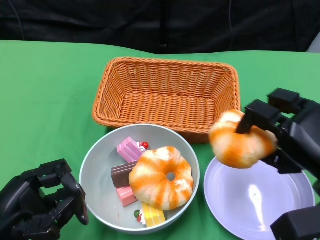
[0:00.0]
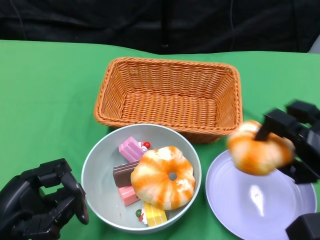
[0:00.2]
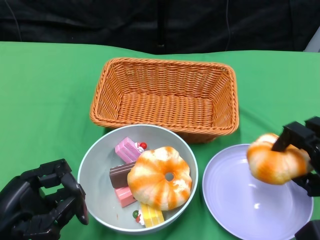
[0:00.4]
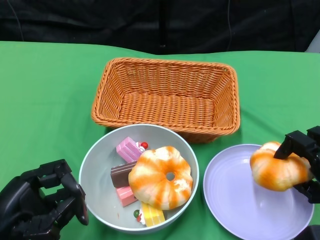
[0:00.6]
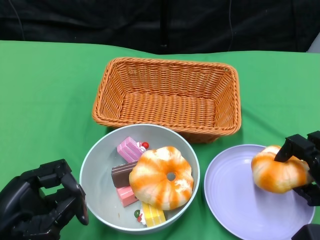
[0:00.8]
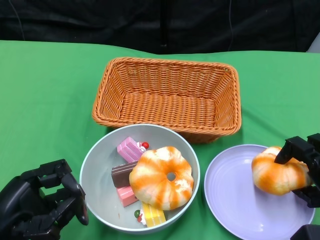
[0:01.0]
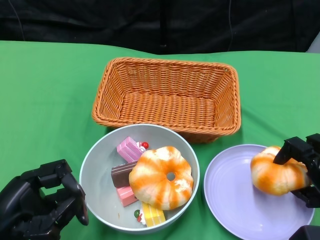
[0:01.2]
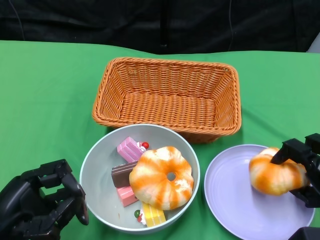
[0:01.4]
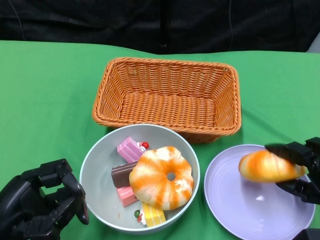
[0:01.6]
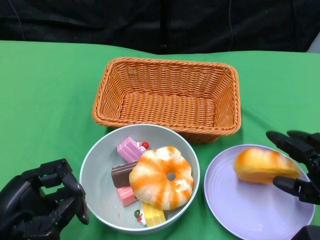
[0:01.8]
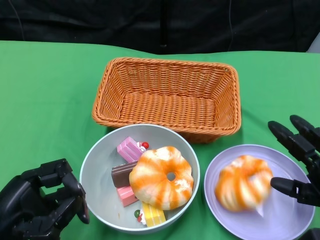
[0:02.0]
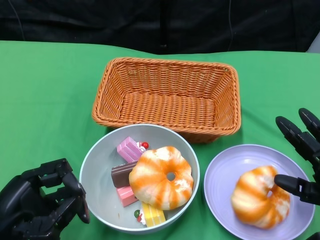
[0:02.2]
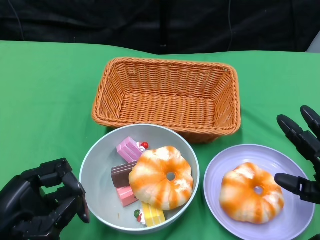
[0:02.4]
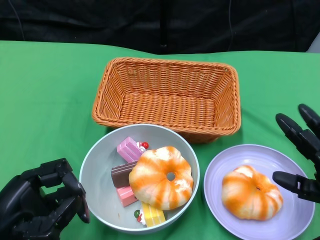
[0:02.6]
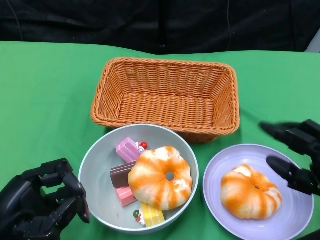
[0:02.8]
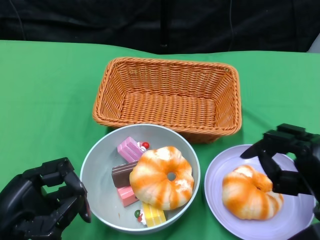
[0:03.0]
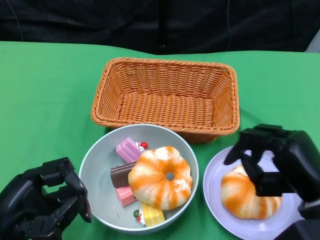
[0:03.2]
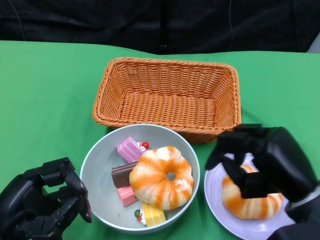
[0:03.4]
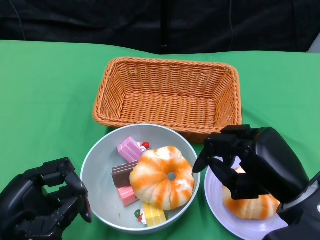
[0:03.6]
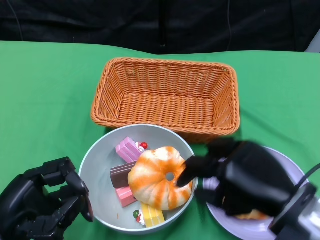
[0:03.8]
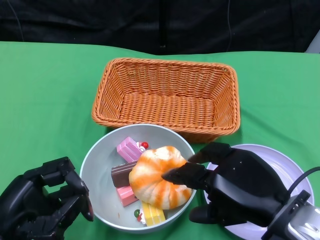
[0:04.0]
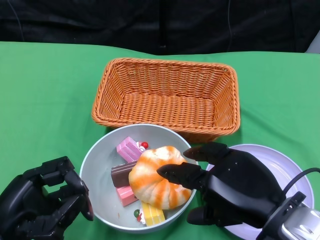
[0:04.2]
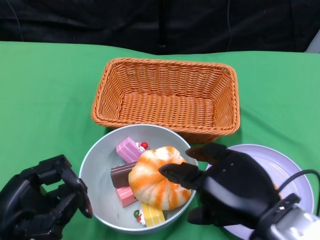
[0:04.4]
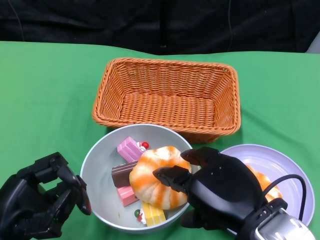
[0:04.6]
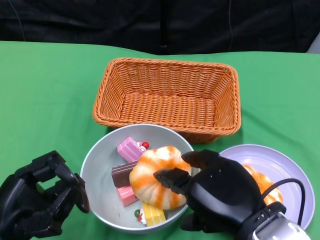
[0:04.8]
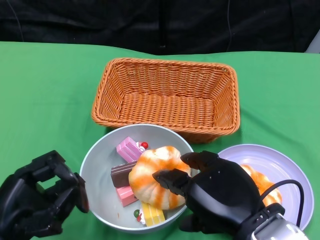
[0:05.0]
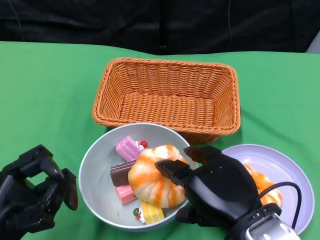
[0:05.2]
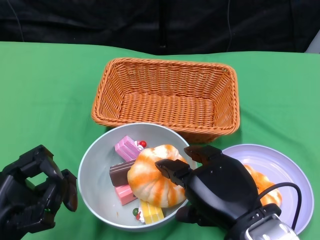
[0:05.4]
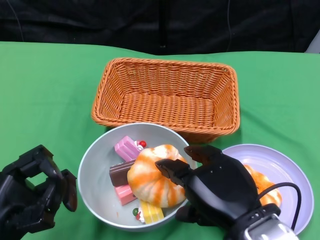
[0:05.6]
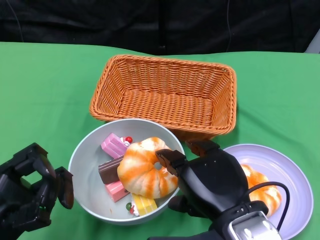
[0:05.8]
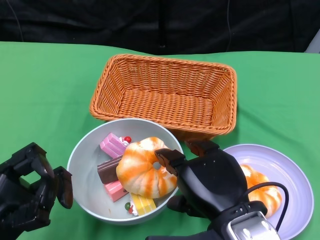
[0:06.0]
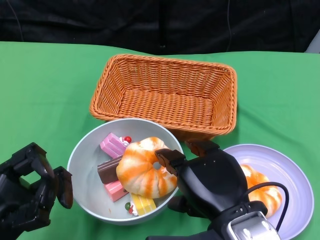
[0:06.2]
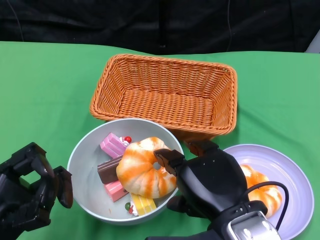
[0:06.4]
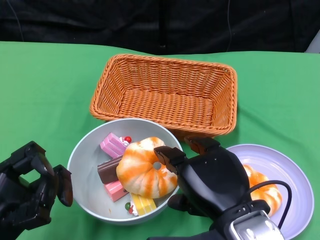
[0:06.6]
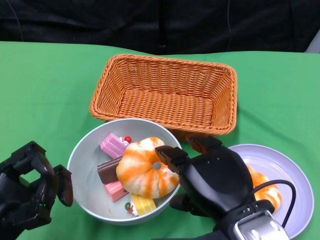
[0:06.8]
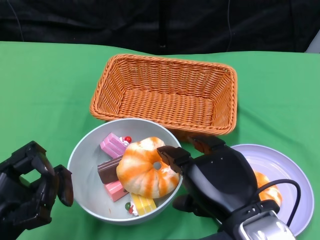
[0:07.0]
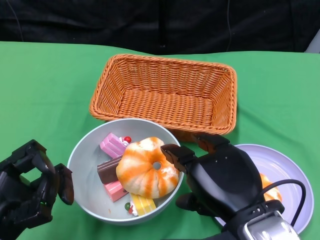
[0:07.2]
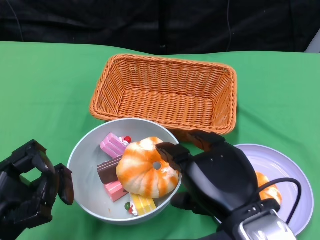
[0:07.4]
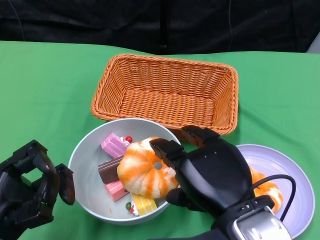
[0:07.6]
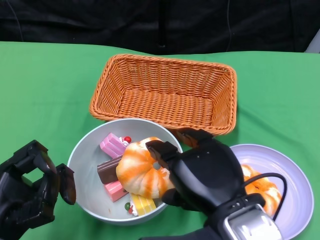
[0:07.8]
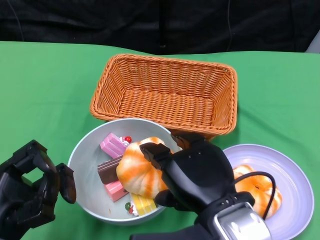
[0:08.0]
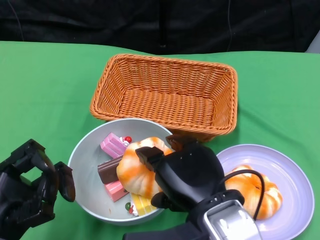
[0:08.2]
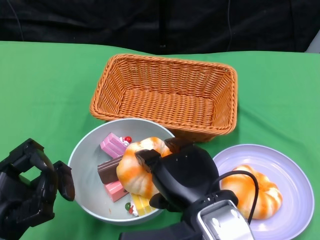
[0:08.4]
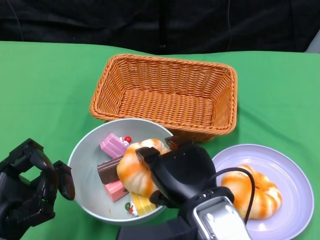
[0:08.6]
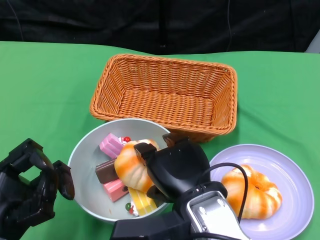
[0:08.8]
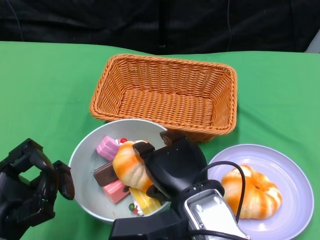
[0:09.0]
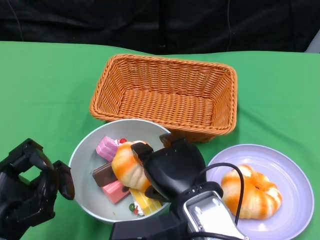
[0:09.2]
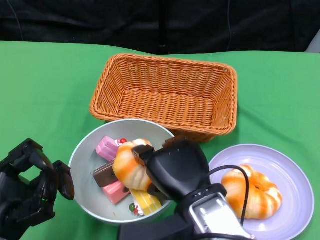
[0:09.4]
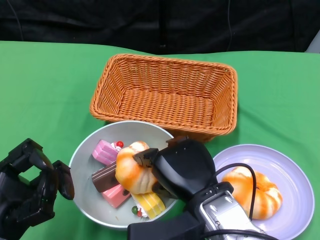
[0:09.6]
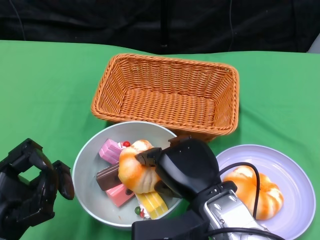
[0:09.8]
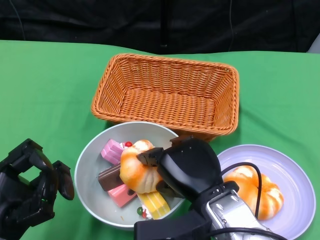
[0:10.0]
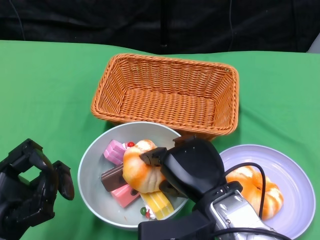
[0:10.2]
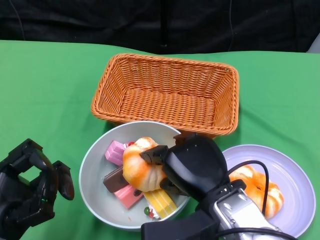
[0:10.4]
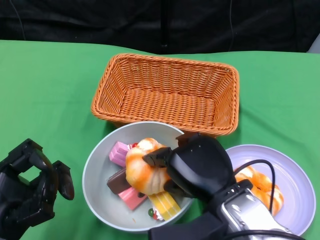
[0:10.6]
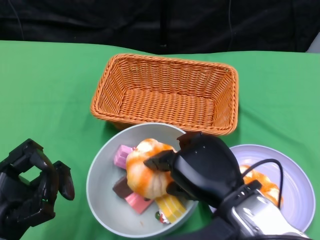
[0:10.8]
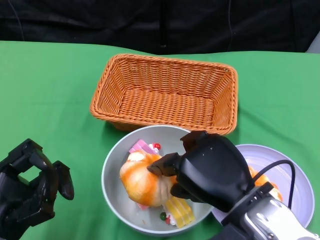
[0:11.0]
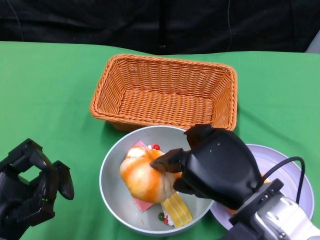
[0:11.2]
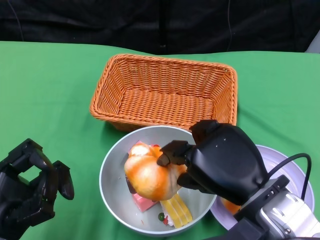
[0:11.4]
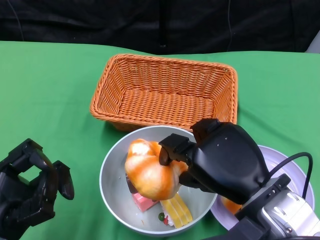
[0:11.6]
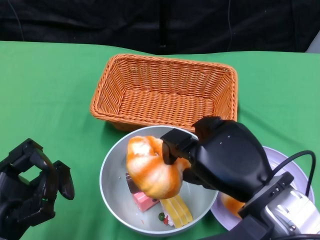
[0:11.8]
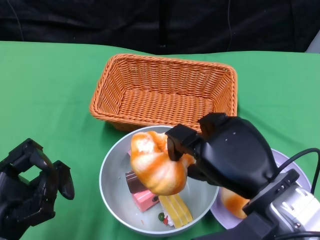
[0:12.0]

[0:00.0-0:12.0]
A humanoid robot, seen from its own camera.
0:00.0 to 0:01.6: The right hand moves downward, roughly 10 cm.
0:01.6 to 0:03.0: The right hand ends up approximately 5 cm from where it was.
0:03.0 to 0:04.4: The right hand heads to the left and upward, covering roughly 10 cm.
0:04.4 to 0:06.0: The right hand shifts approximately 5 cm to the left.
0:06.0 to 0:07.6: There are only small adjustments of the hands.
0:07.6 to 0:09.0: The right hand heads to the left, covering some 5 cm.
0:09.0 to 0:10.4: There are only small adjustments of the hands.
0:10.4 to 0:12.0: The right hand shifts approximately 5 cm to the right.

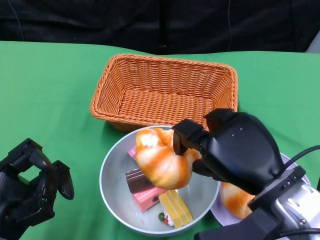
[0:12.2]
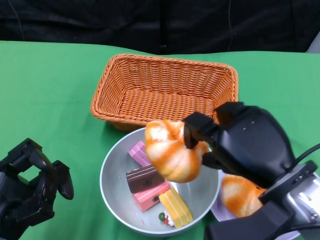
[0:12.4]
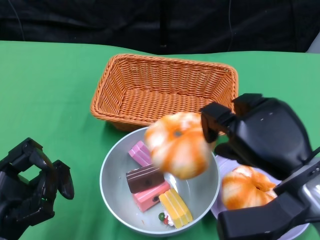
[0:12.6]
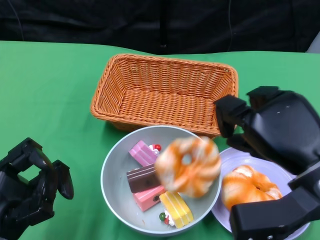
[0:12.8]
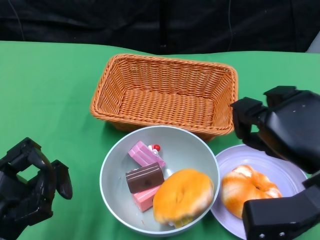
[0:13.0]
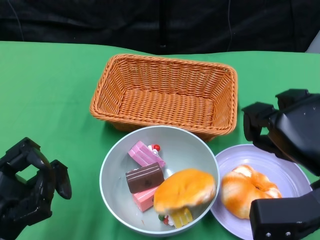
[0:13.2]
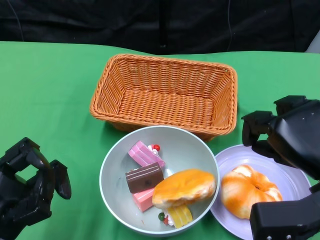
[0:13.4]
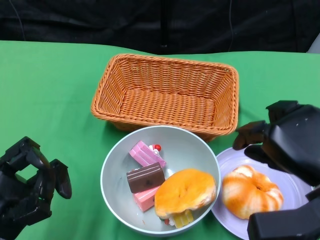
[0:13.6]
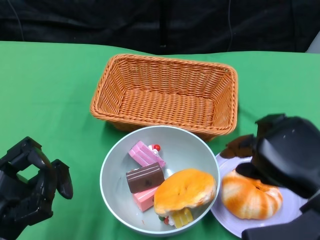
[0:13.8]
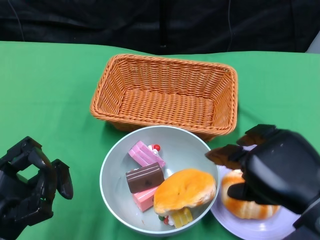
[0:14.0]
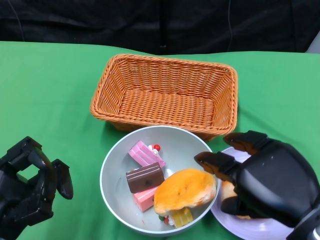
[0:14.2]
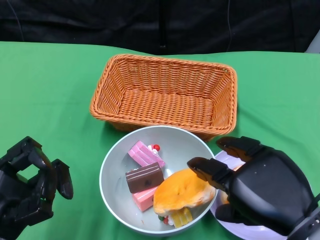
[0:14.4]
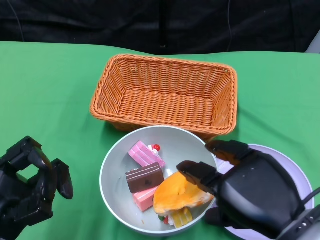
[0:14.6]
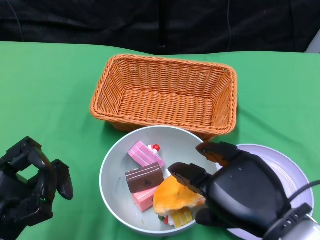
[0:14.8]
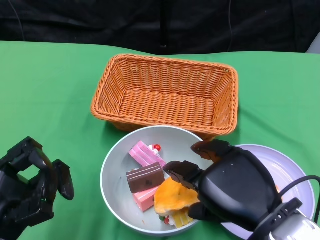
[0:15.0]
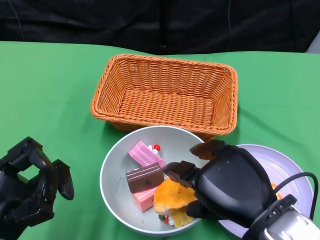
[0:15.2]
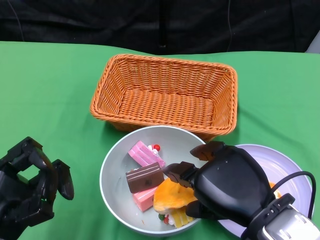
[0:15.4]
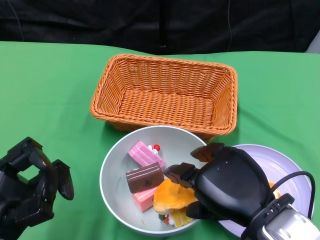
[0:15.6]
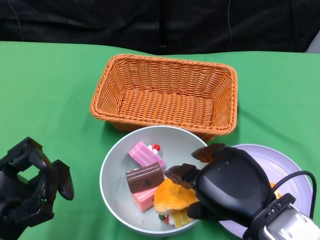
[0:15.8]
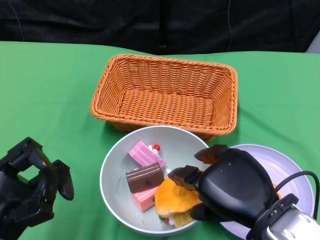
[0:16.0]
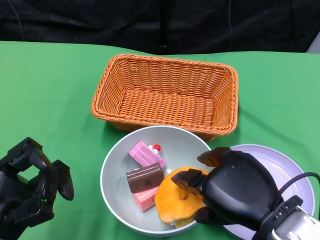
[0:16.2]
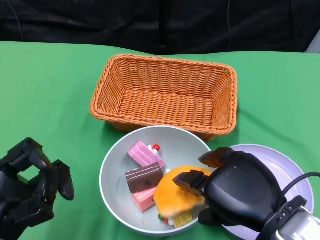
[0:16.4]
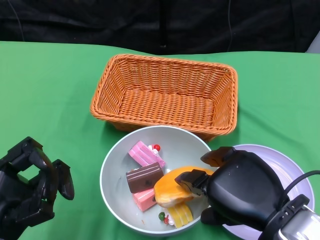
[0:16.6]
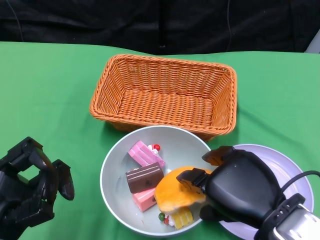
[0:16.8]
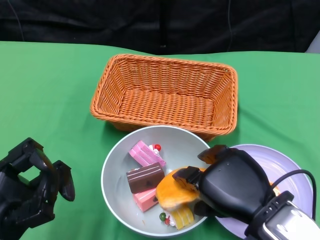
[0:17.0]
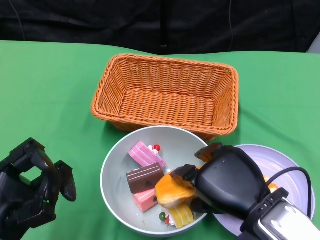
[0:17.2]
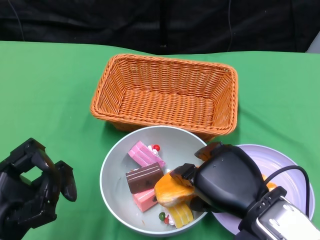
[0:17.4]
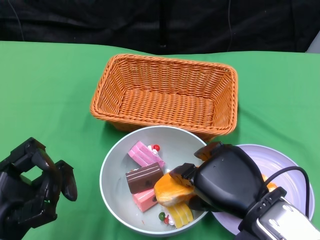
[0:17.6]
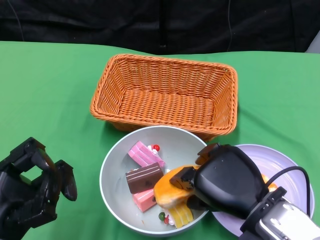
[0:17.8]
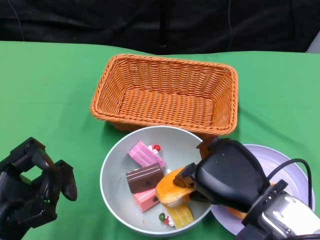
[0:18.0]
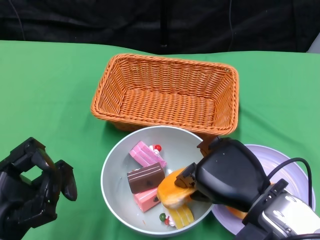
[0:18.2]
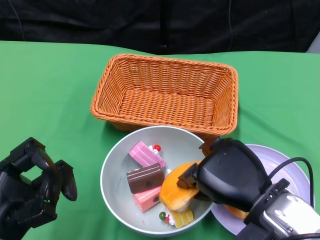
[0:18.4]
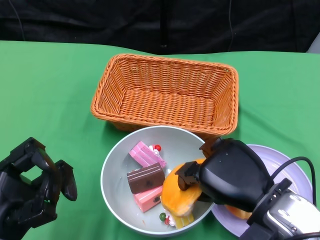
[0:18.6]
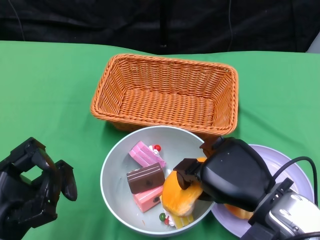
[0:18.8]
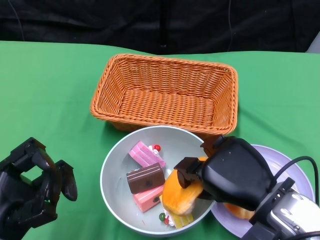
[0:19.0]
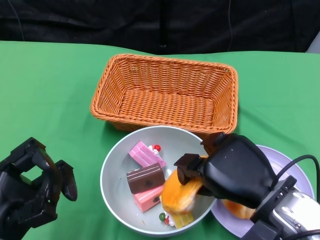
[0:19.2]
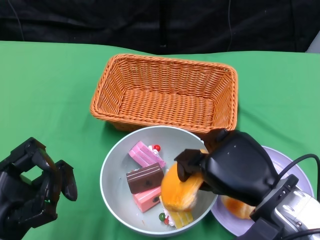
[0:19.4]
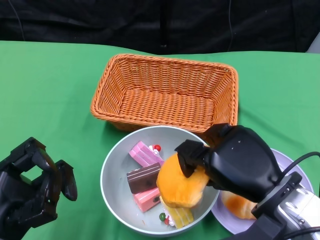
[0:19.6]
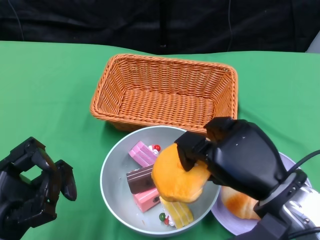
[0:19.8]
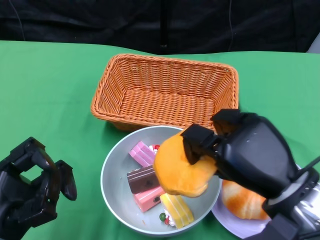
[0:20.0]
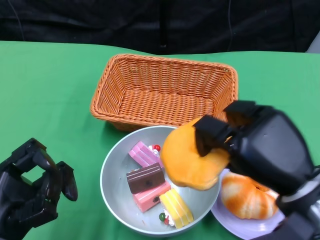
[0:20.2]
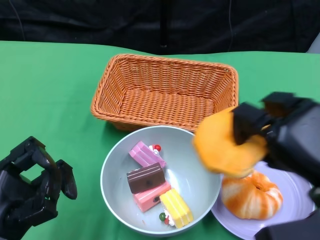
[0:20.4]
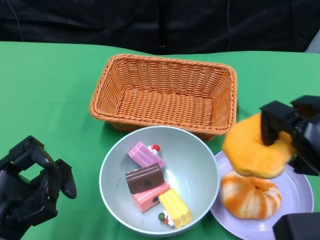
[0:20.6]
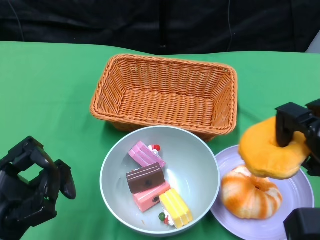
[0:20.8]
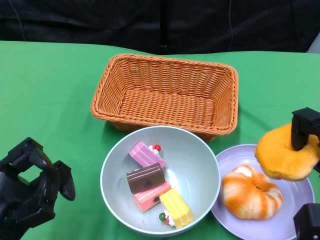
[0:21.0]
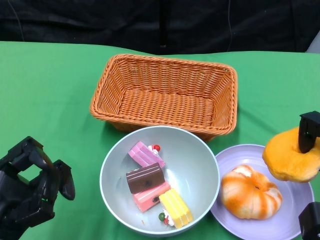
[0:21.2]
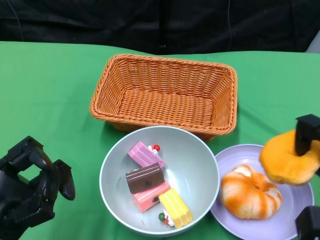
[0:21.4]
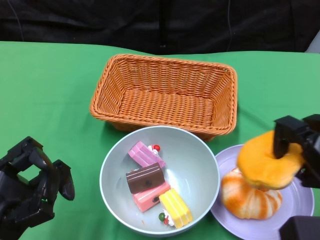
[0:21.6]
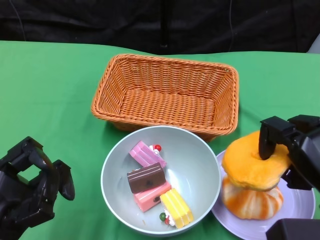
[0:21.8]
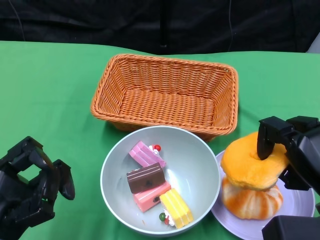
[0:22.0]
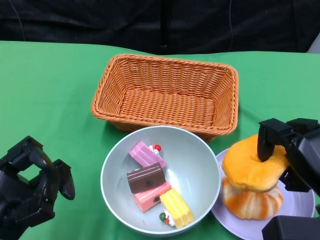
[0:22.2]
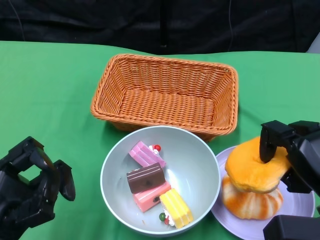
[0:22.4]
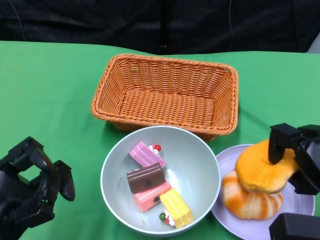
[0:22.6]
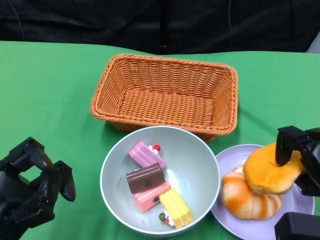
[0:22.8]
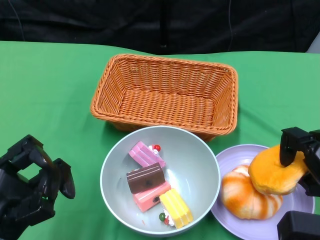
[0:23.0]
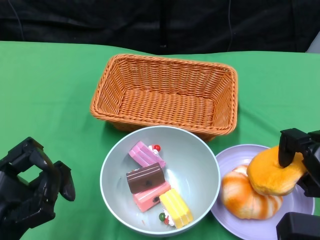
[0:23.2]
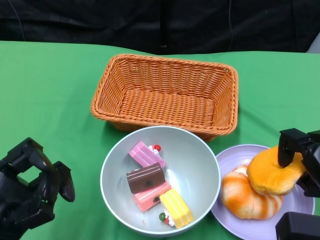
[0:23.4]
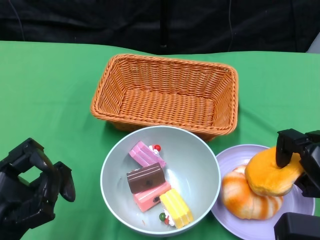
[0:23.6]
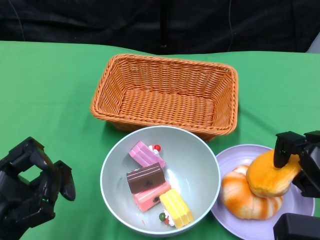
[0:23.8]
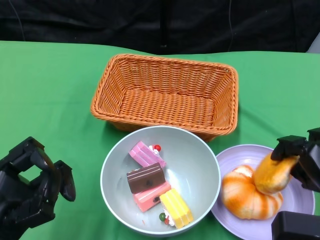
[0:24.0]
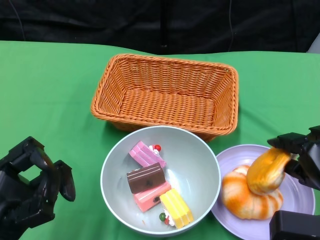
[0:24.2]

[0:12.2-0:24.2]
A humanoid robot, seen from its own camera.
0:12.2 to 0:13.8: The right hand is displaced to the right by approximately 5 cm.
0:13.8 to 0:15.2: The right hand heads to the left, covering some 5 cm.
0:15.2 to 0:19.8: There are only small adjustments of the hands.
0:19.8 to 0:21.2: The right hand is displaced to the right by some 15 cm.
0:21.2 to 0:24.2: The hands move only a little.
